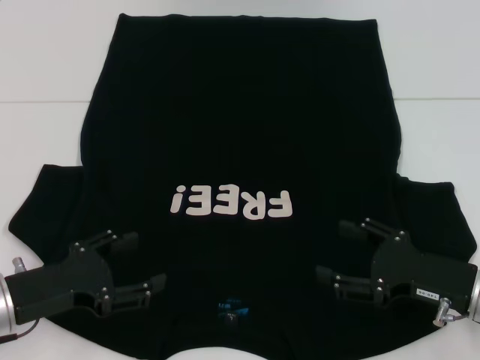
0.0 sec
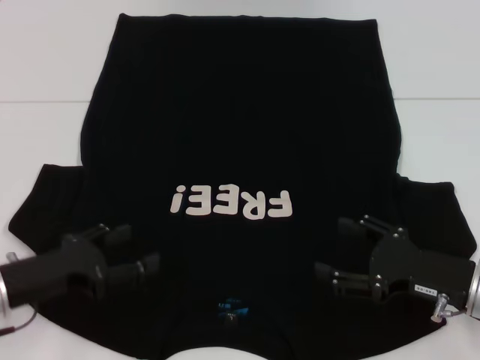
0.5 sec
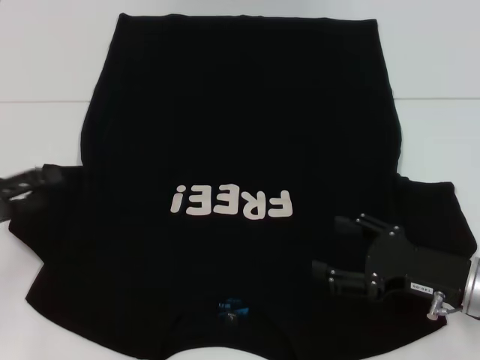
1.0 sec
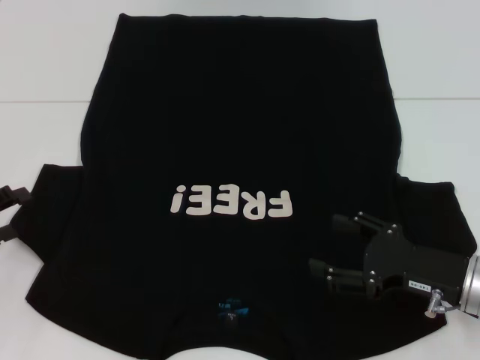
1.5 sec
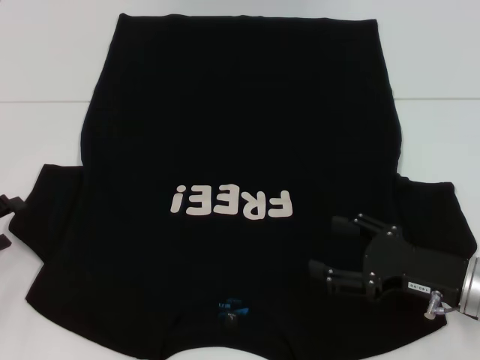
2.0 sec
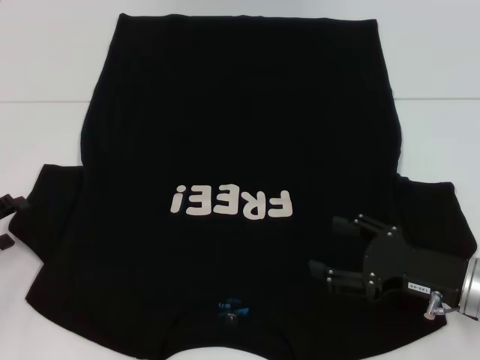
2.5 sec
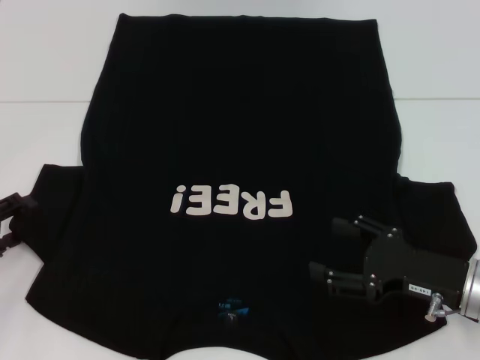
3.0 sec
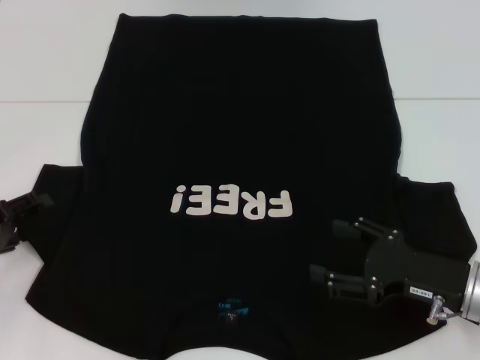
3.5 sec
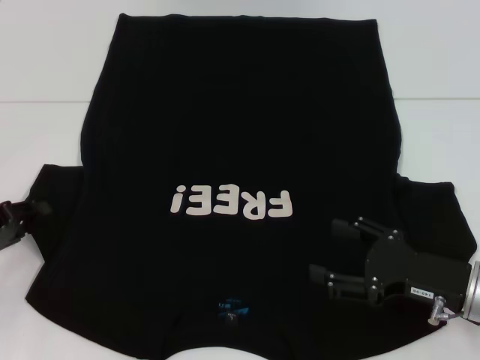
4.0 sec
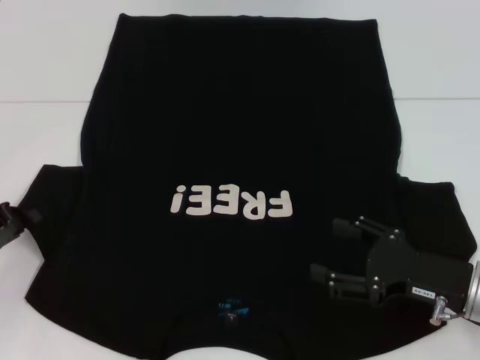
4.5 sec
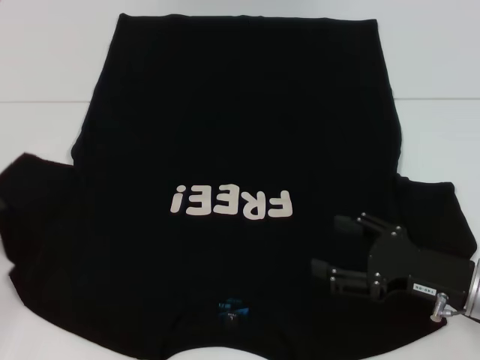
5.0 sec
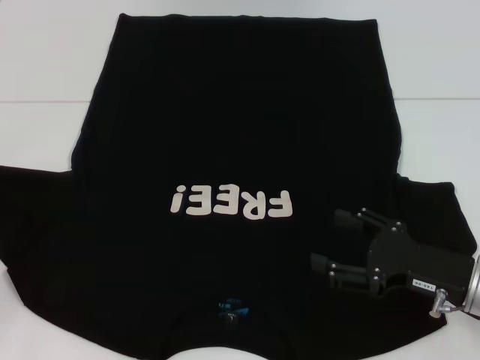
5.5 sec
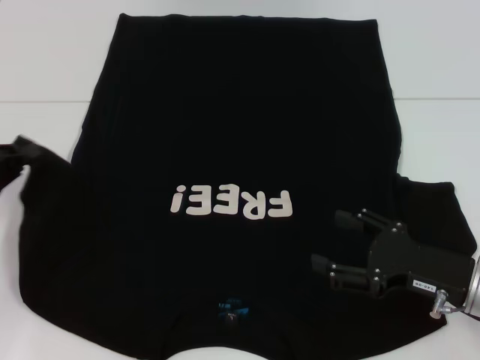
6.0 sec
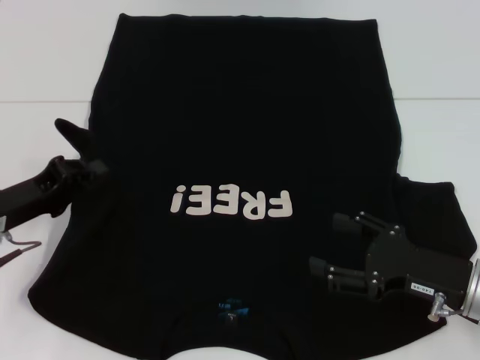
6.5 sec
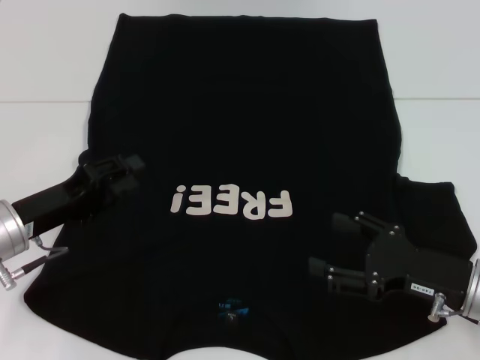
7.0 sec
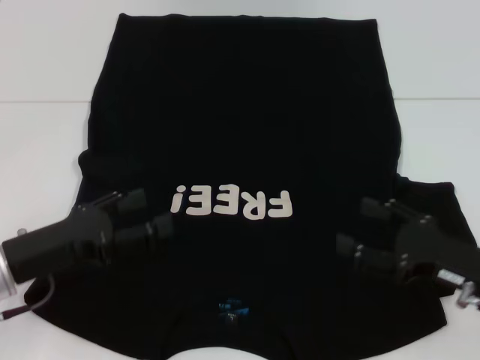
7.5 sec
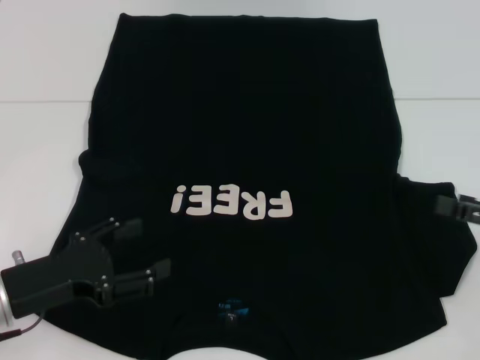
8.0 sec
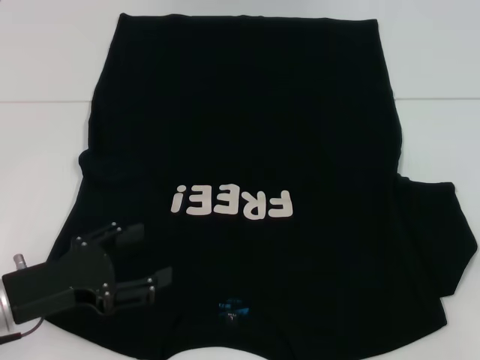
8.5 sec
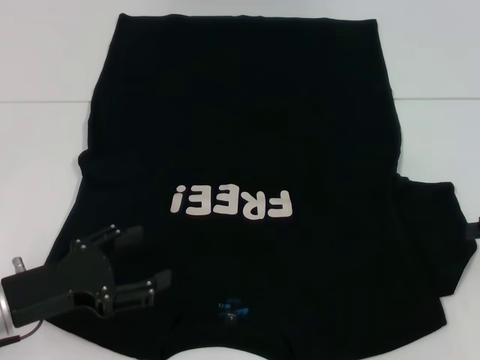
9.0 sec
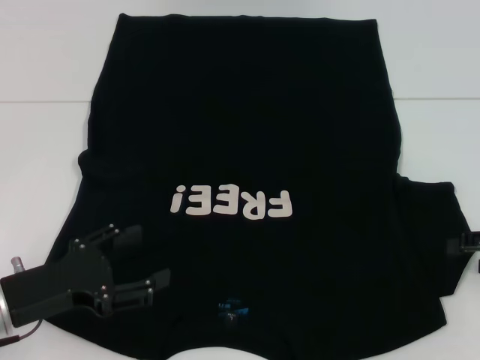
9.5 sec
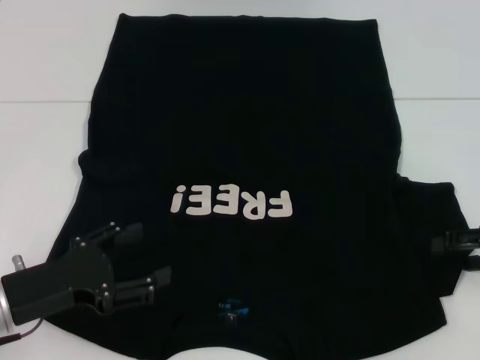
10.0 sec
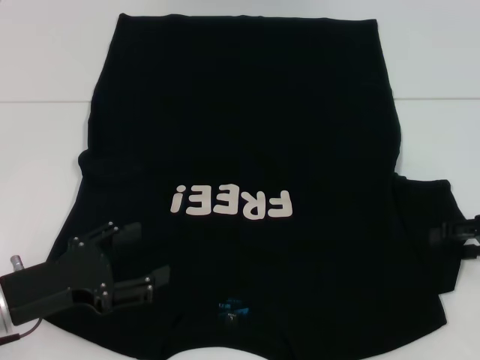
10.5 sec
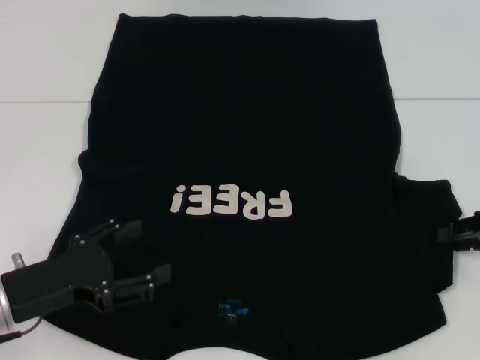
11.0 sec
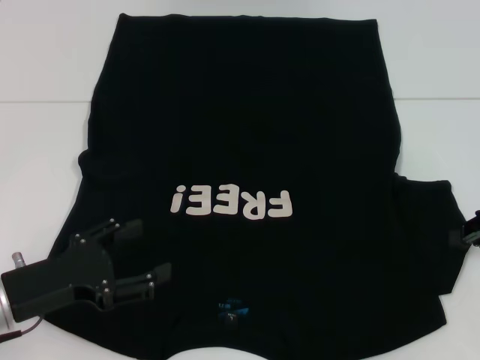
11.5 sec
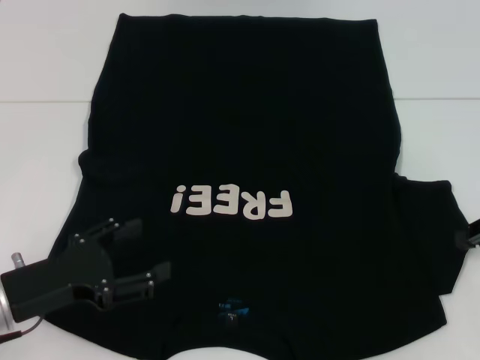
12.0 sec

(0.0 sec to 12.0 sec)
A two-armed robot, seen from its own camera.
Step, 0.0 sec - 7.0 sec: Fold the bottom left sleeve with your left hand.
0.0 sec - 2.0 sec: The left gripper moves to the left, about 10 cm.
2.0 sec - 4.0 sec: The grippers move only a little.
4.0 sec - 6.0 sec: The left gripper closes.
6.0 sec - 8.0 sec: The right gripper shifts some 10 cm to the right and upward. The left gripper moves to the right and backward, roughly 10 cm, and opens up.
10.0 sec - 12.0 sec: The right gripper closes up.

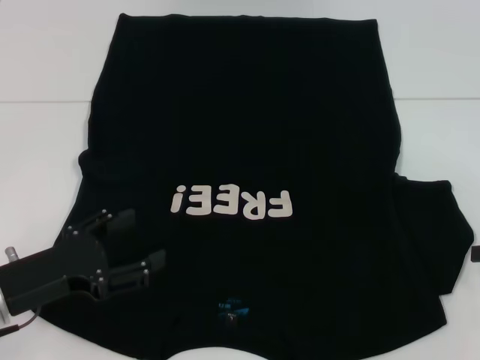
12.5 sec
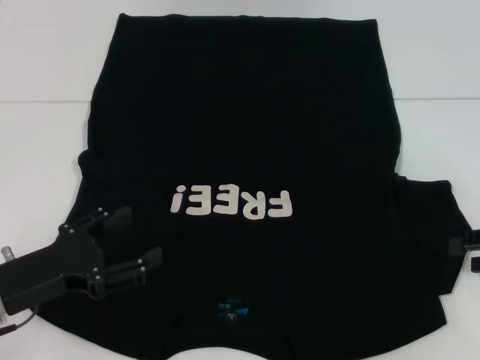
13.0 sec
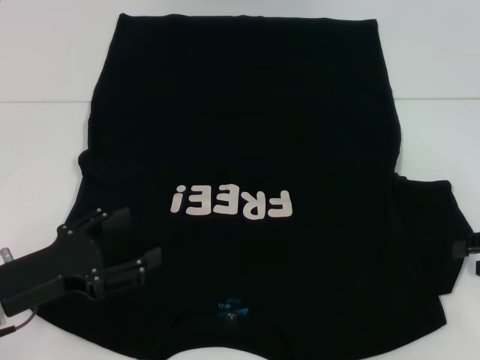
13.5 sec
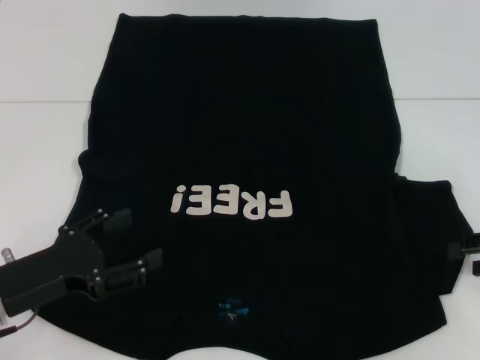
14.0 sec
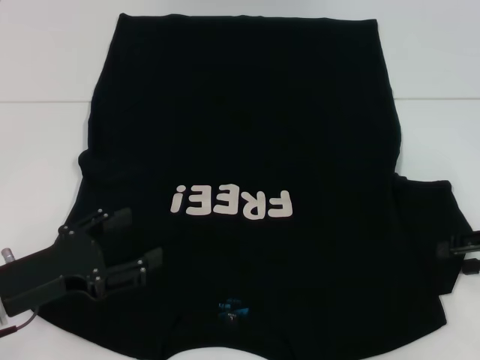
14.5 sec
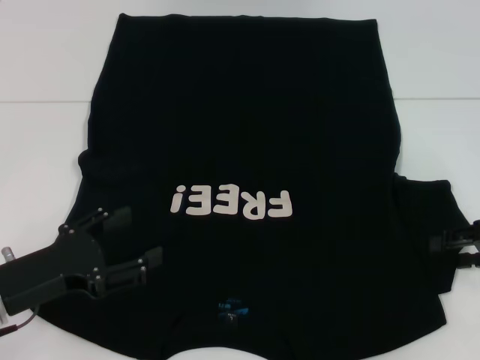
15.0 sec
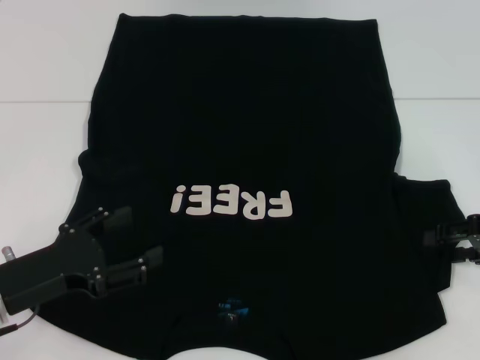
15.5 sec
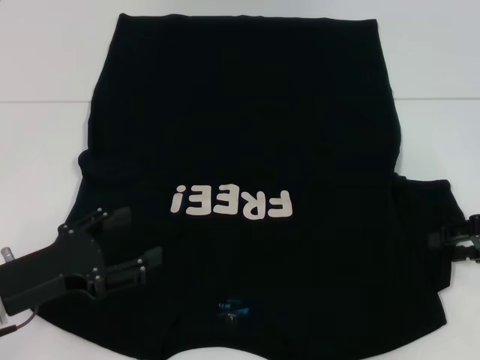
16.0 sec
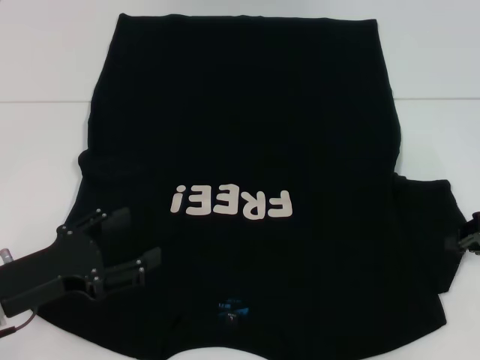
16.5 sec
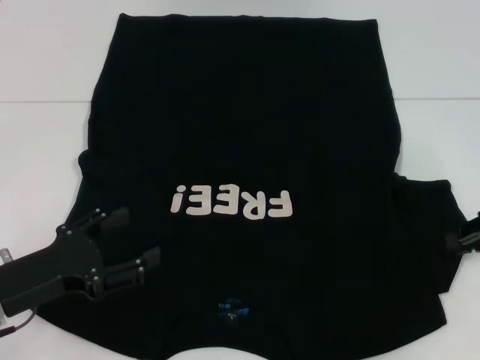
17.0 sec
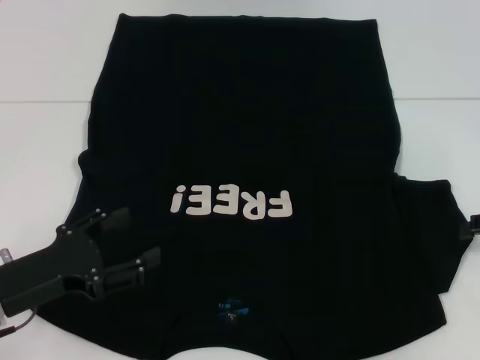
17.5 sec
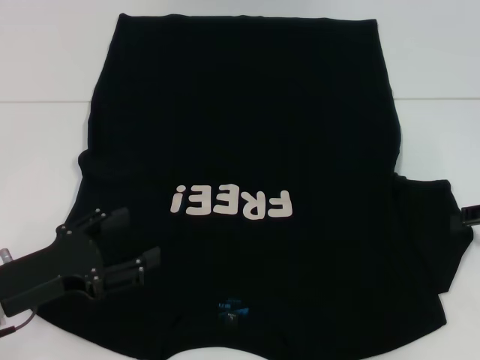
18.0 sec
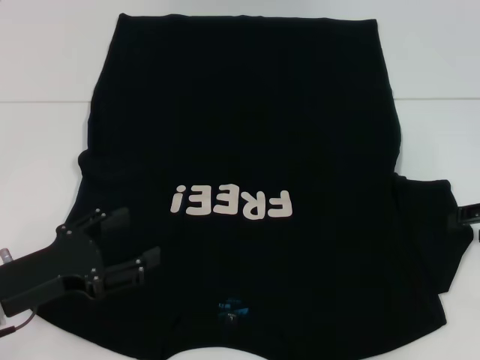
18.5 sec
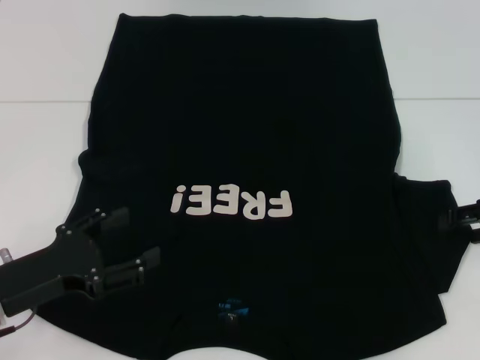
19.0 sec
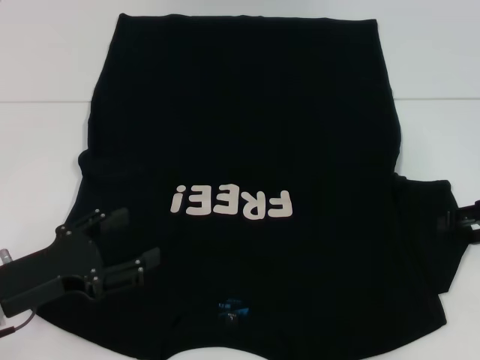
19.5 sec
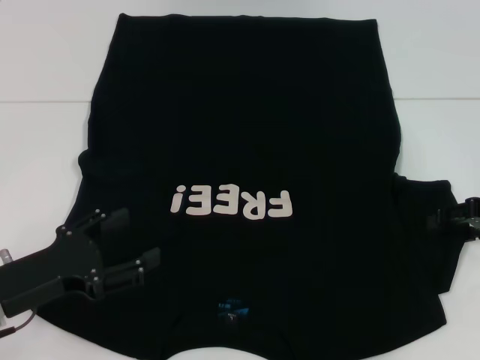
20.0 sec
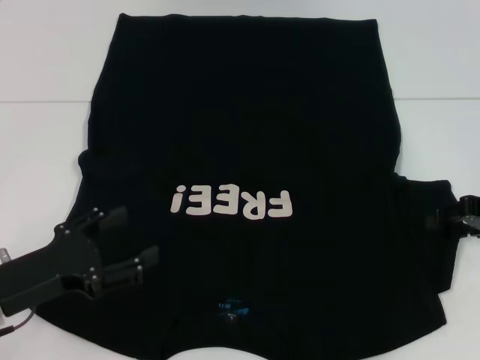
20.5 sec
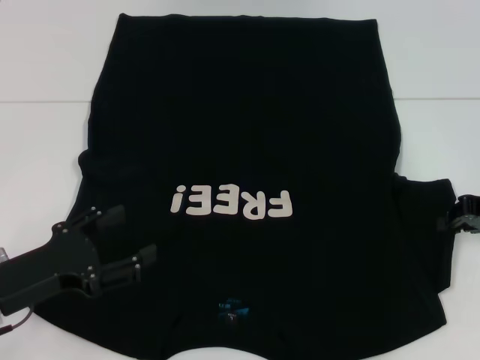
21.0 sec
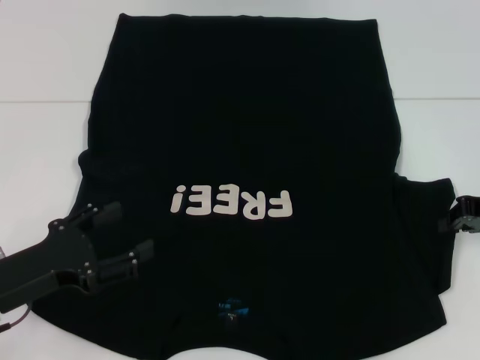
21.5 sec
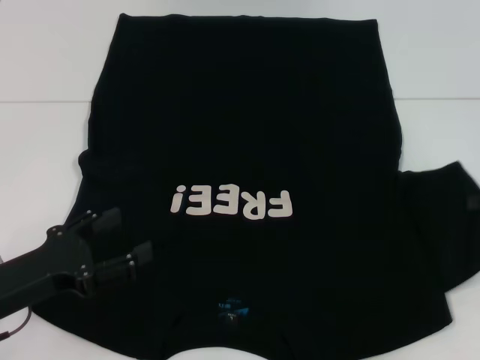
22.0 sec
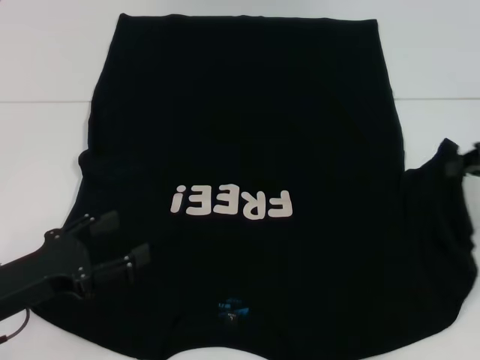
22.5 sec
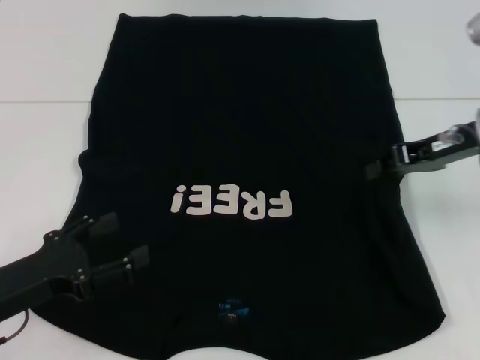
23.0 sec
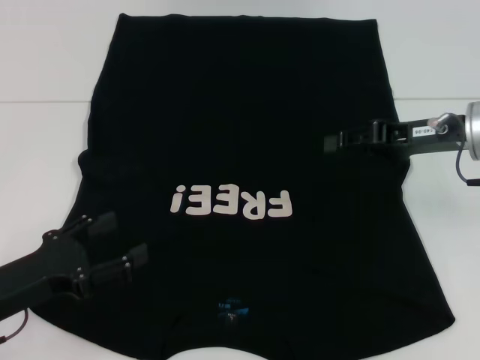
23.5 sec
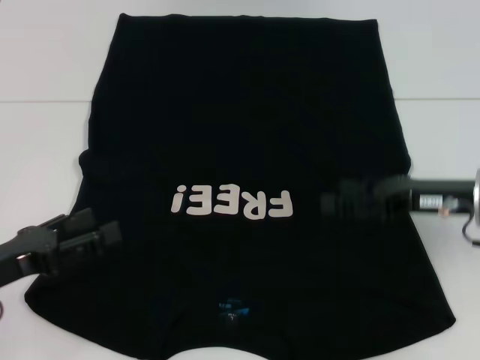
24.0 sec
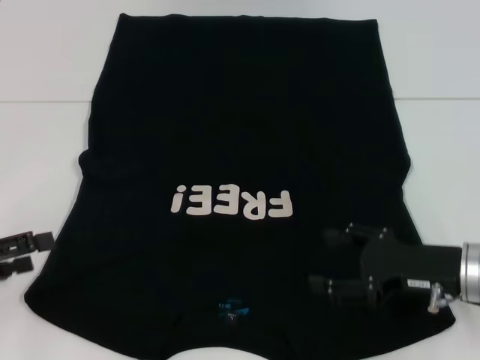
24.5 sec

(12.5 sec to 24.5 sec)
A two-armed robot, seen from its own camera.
Step, 12.5 sec - 24.0 sec: Fold the bottom right sleeve with your right hand.
14.5 sec - 16.5 sec: The right gripper closes up.
18.5 sec - 20.5 sec: The grippers move only a little.
20.5 sec - 22.5 sec: The right gripper shifts roughly 5 cm upward, and closes up.
22.5 sec - 24.5 sec: The left gripper heads to the left, covering some 10 cm. The right gripper goes roughly 15 cm downward, to the left and backward, and opens up.

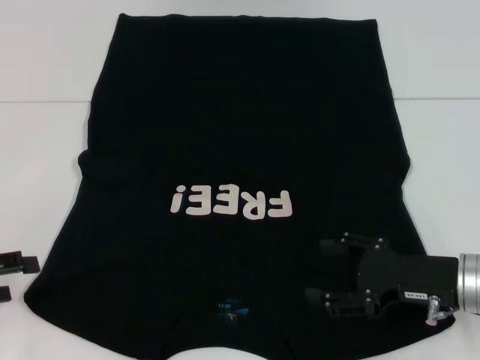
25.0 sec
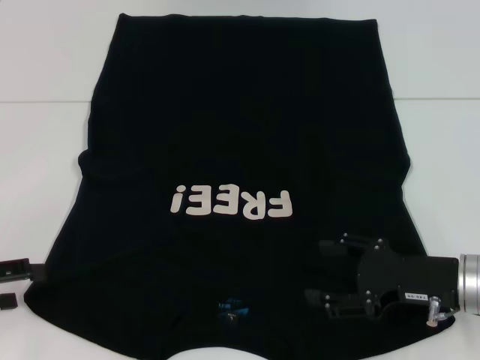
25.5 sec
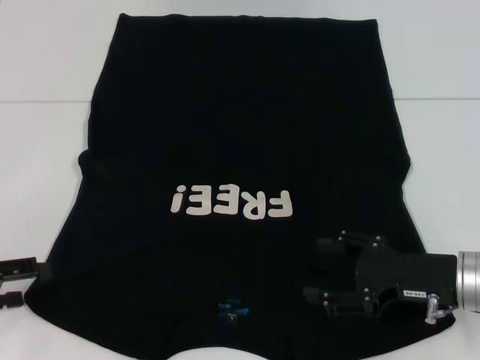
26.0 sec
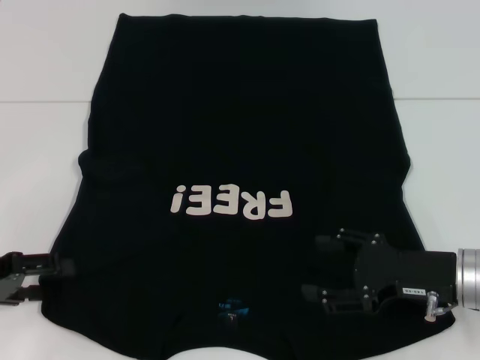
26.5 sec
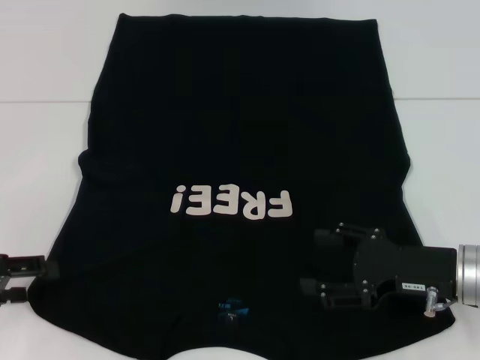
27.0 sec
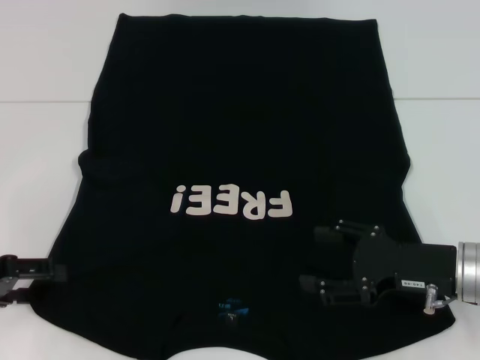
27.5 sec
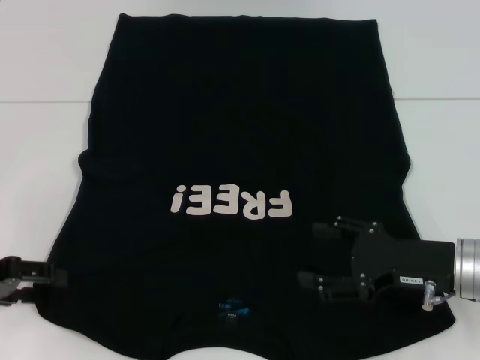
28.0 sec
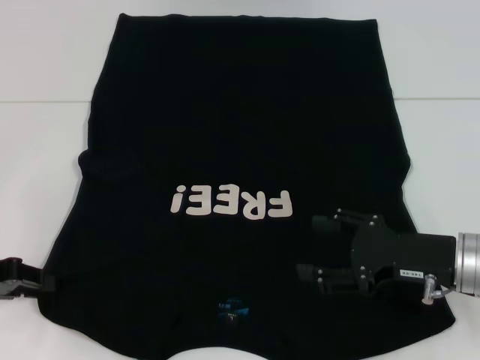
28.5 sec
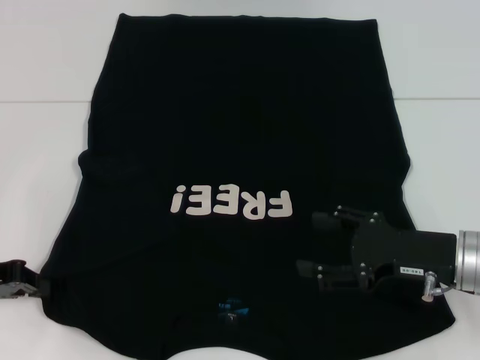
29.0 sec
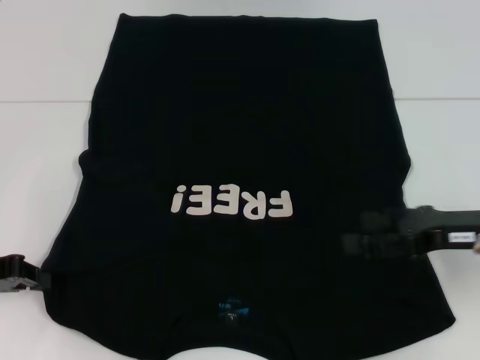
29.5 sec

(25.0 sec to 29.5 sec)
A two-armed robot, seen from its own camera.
25.0 sec - 27.0 sec: The grippers stay close to where they were, moving slightly.
27.0 sec - 29.5 sec: The left gripper closes; the right gripper is displaced upward by roughly 5 cm.
